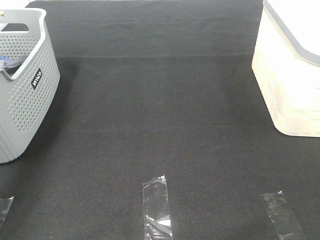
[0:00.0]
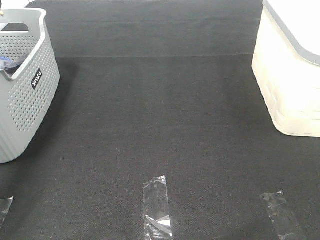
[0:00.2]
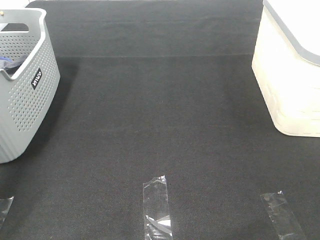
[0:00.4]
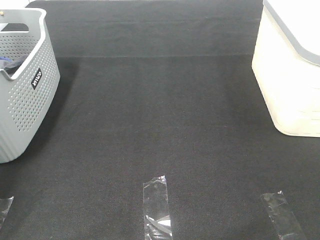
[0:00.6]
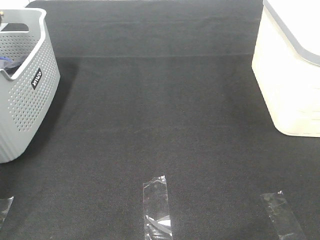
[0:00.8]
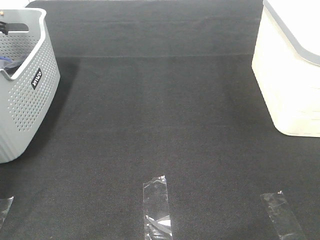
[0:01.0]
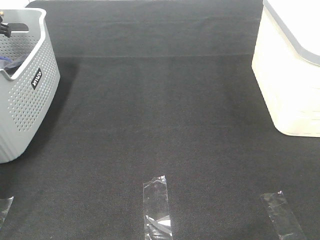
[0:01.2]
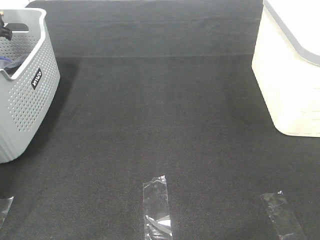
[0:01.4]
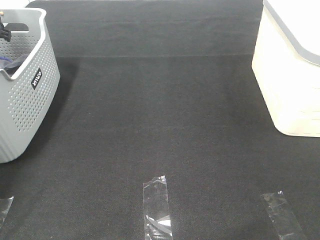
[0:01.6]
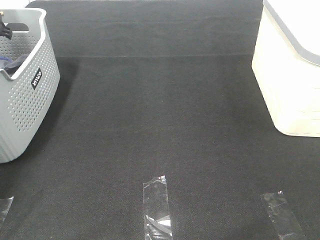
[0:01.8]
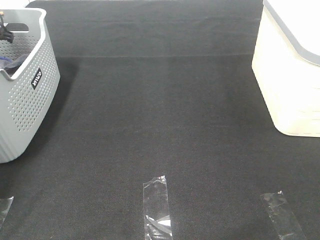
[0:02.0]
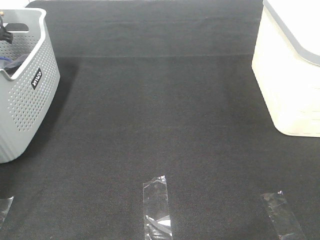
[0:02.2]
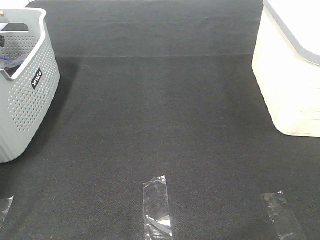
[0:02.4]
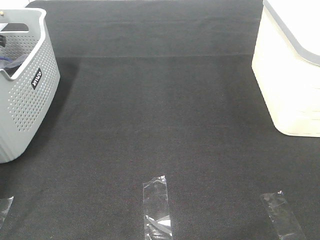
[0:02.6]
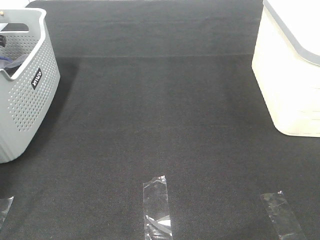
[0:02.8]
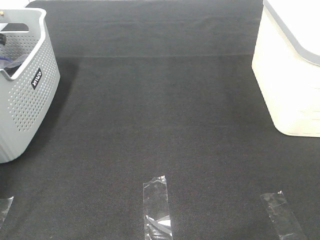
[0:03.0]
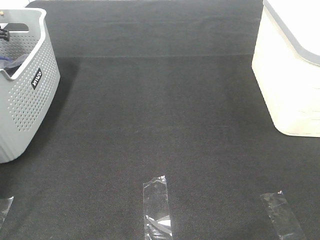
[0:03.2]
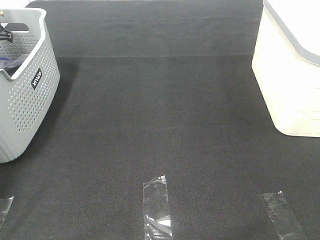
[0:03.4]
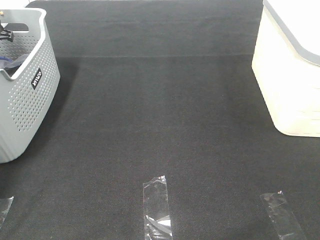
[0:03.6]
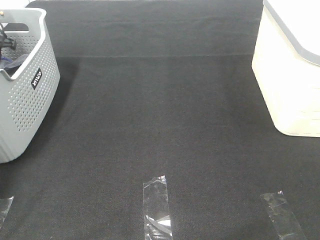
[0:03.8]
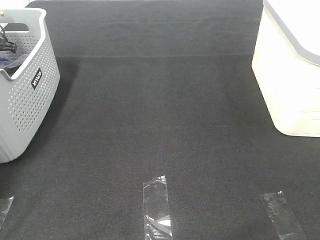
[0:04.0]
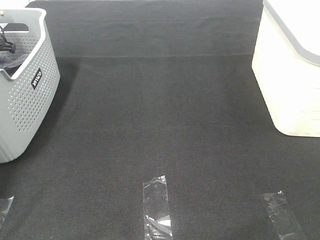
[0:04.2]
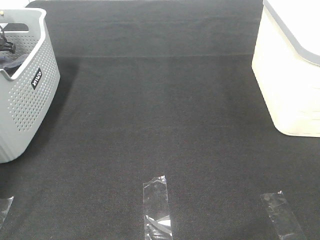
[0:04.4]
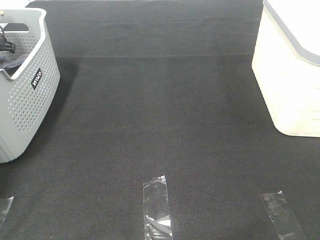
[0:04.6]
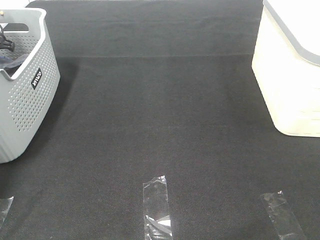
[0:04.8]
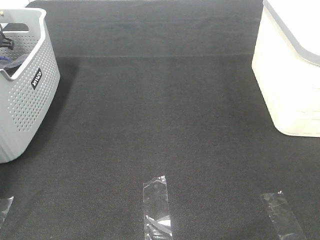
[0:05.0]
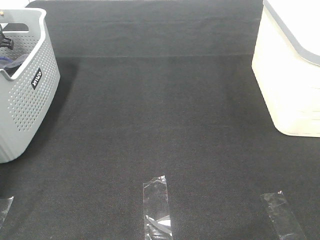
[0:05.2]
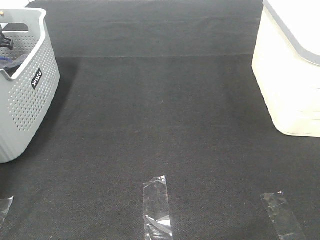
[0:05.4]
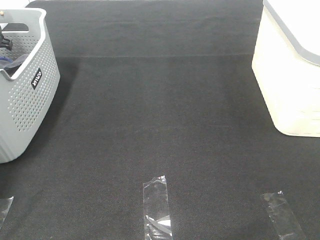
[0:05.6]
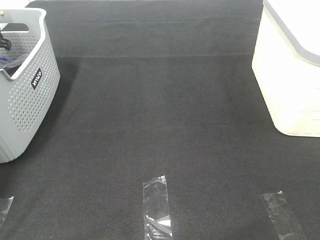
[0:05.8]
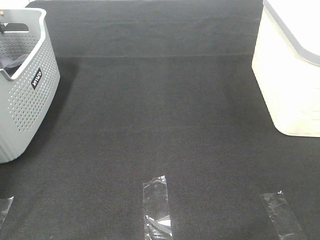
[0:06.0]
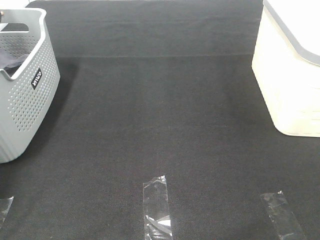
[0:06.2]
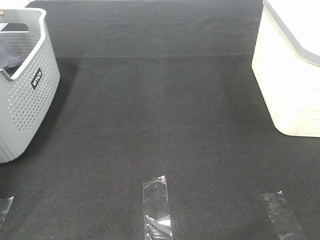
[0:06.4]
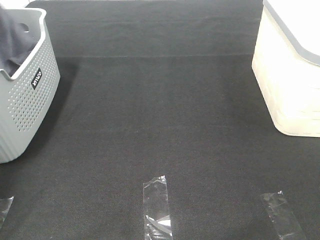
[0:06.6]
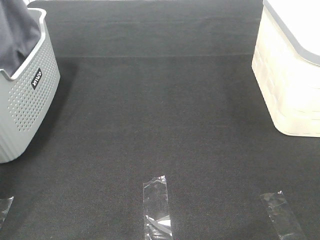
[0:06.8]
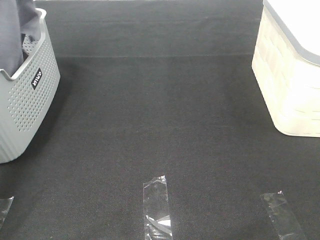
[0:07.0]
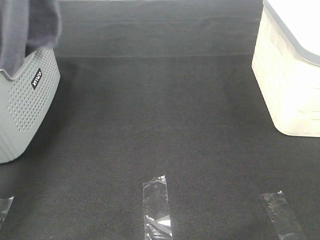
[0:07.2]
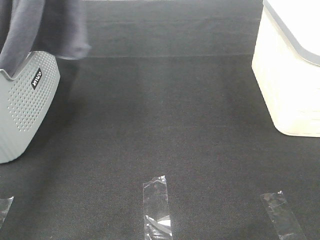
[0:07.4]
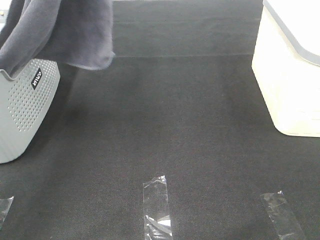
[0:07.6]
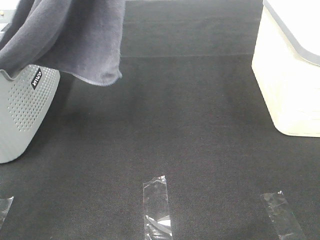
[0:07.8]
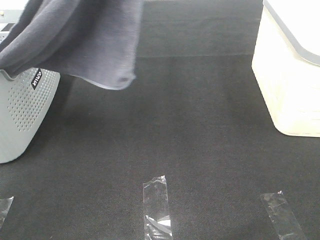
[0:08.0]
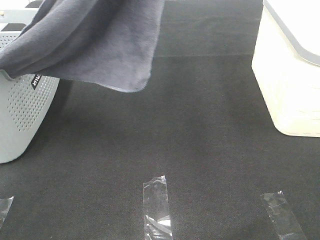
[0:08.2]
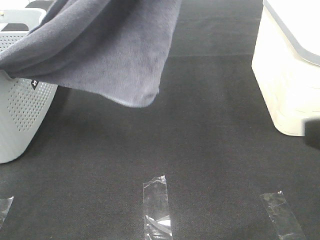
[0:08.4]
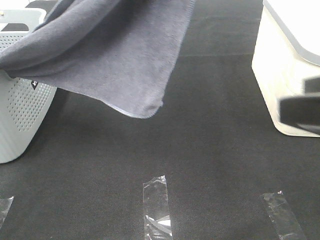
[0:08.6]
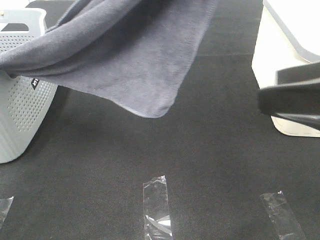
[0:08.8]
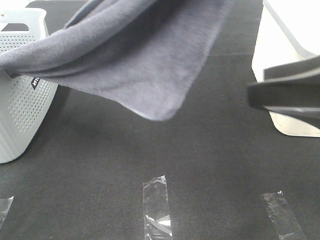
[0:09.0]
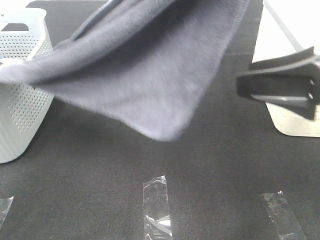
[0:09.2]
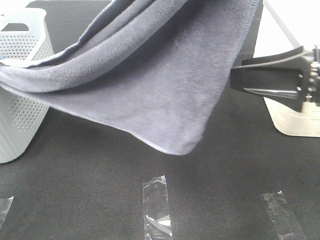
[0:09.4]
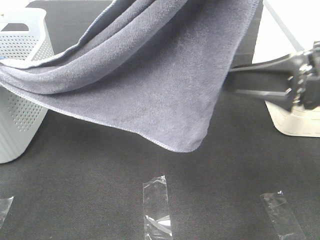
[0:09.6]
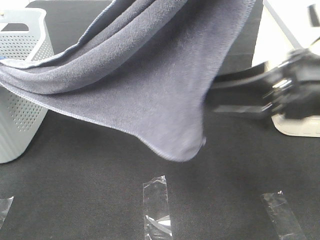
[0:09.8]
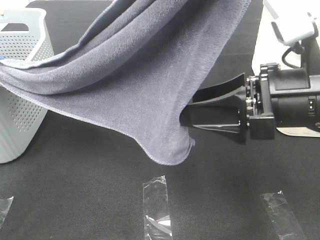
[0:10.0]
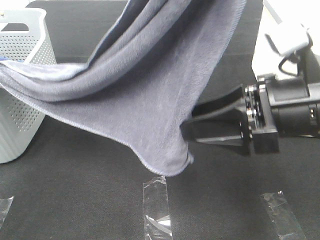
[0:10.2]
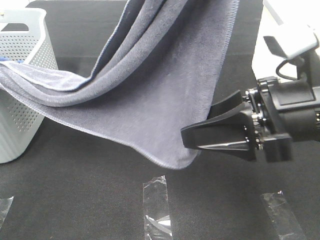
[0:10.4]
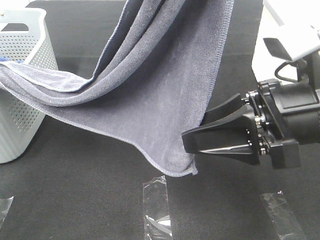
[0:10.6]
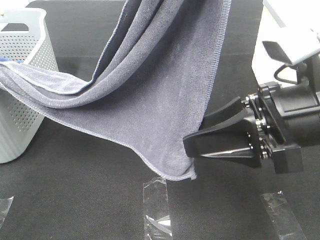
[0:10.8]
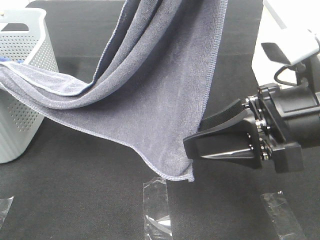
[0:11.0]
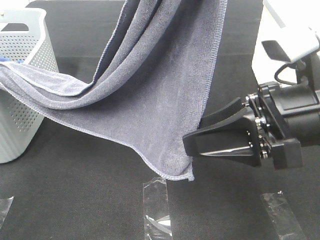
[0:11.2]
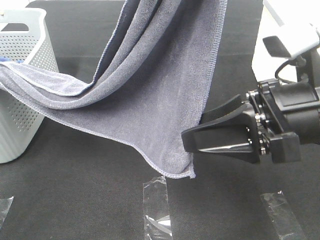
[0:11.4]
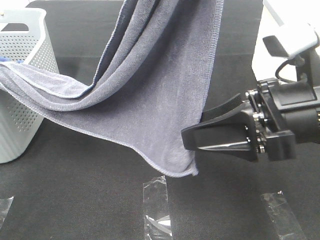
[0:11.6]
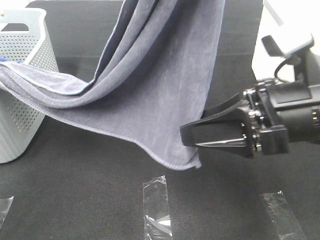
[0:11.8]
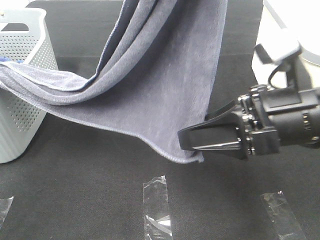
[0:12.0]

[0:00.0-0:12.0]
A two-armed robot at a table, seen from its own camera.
Task of the whole recording: Remove the towel and place it.
Step, 0:06.2 to 0:11.4: Right hand: grab a corner of the grey towel and straighten it.
0:00.0 to 0:01.6: The left gripper heads forward, downward and to the left, covering about 15 cm.
0:06.0 to 0:07.6: The left gripper goes roughly 40 cm upward, to the right and backward.
0:07.6 to 0:09.0: The right gripper travels forward by some 15 cm, while the left gripper is displaced to the right and backward by about 20 cm.
0:09.0 to 0:10.4: The right gripper moves to the left and downward, some 10 cm.
0:10.4 to 0:12.0: There are only small adjustments of the grippers.

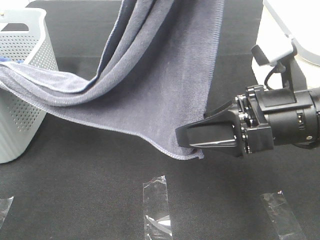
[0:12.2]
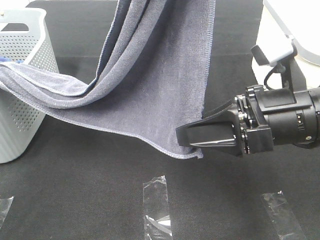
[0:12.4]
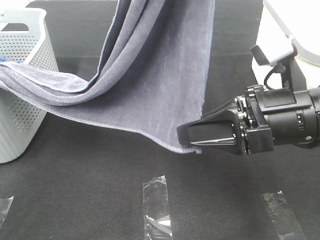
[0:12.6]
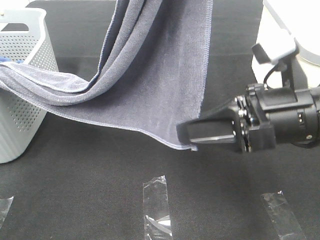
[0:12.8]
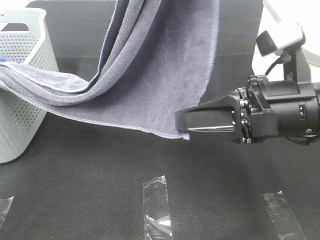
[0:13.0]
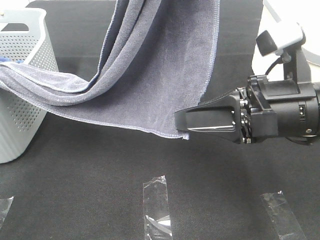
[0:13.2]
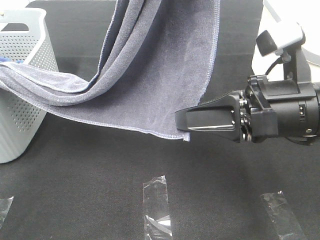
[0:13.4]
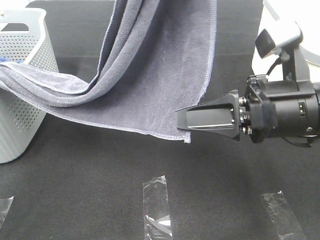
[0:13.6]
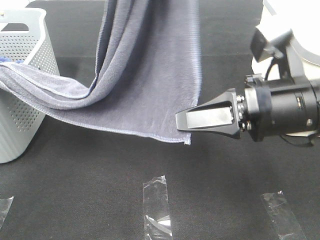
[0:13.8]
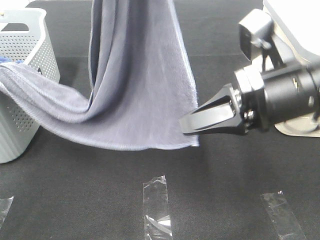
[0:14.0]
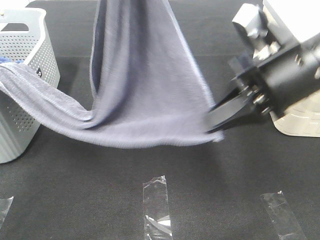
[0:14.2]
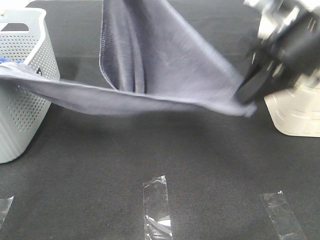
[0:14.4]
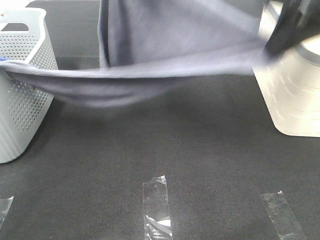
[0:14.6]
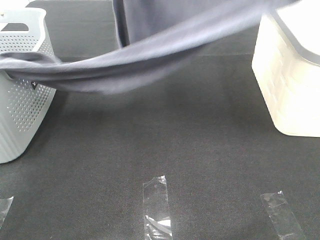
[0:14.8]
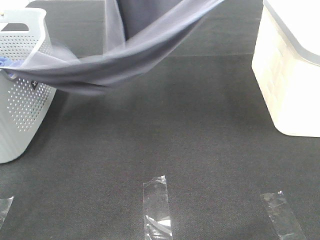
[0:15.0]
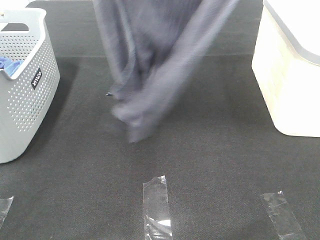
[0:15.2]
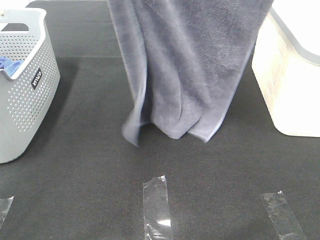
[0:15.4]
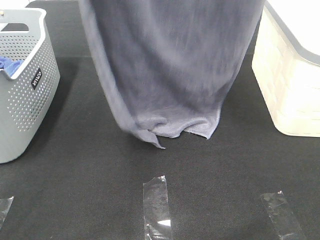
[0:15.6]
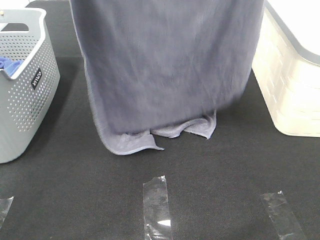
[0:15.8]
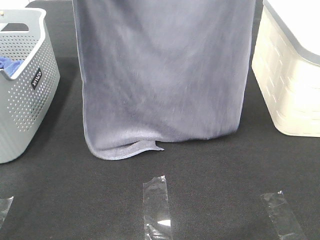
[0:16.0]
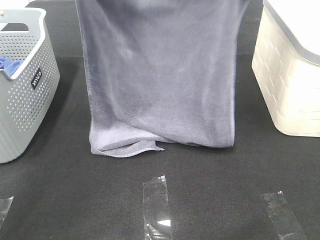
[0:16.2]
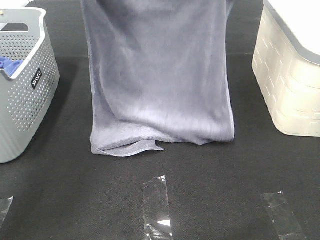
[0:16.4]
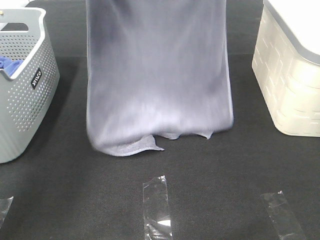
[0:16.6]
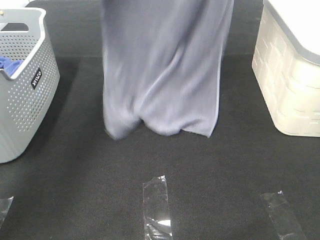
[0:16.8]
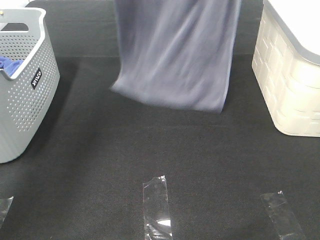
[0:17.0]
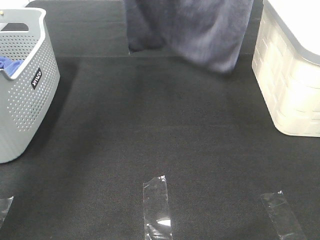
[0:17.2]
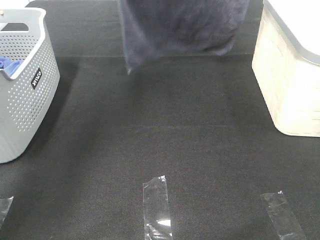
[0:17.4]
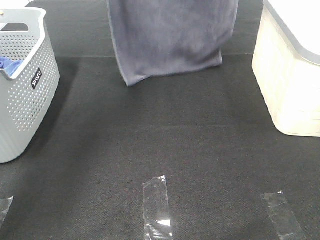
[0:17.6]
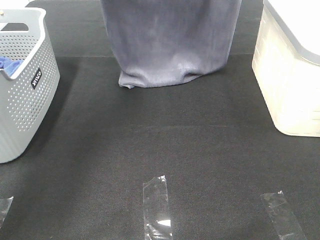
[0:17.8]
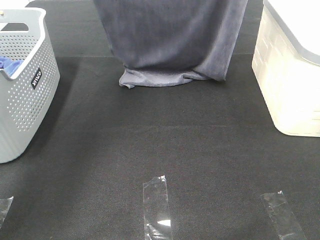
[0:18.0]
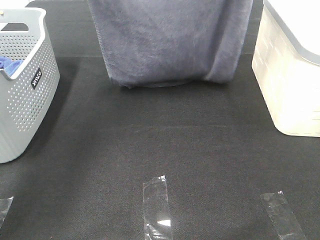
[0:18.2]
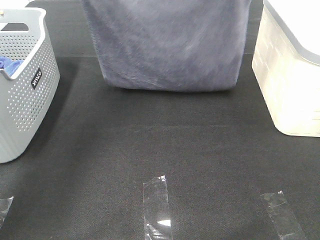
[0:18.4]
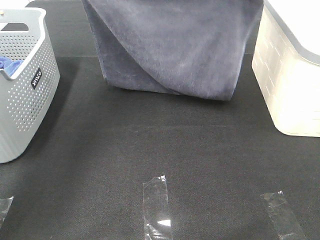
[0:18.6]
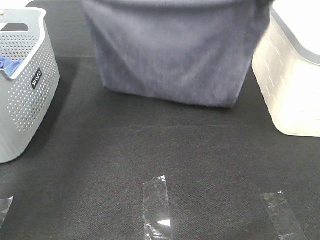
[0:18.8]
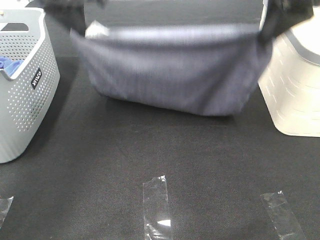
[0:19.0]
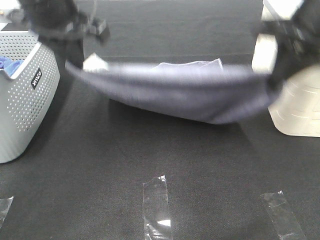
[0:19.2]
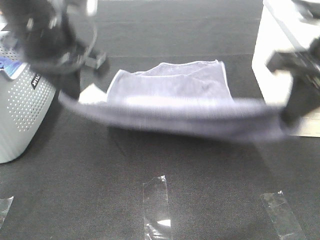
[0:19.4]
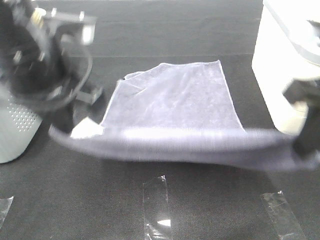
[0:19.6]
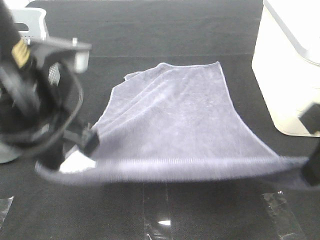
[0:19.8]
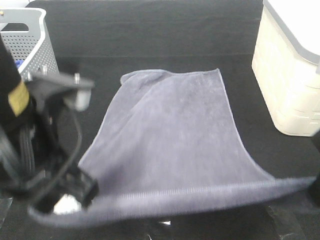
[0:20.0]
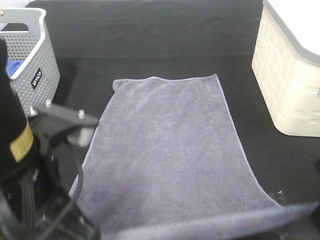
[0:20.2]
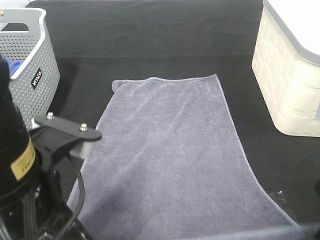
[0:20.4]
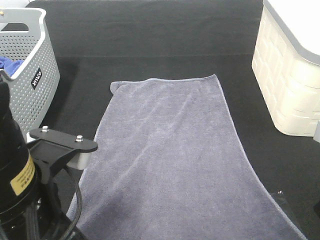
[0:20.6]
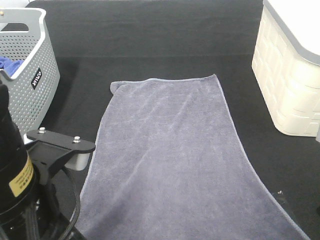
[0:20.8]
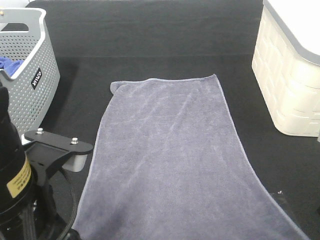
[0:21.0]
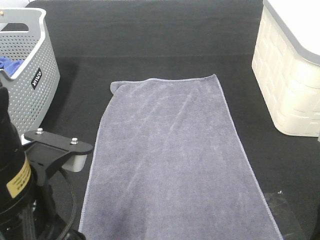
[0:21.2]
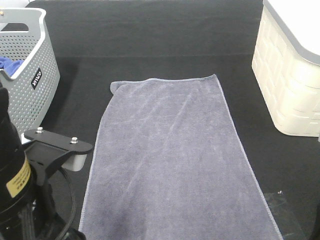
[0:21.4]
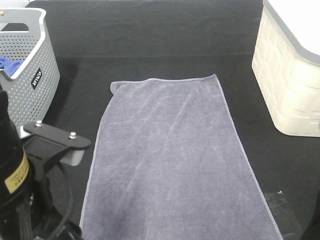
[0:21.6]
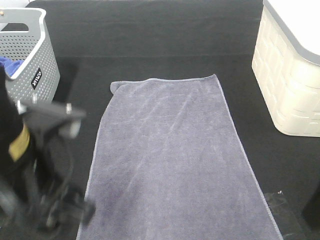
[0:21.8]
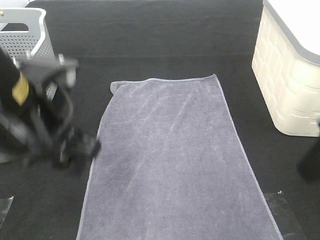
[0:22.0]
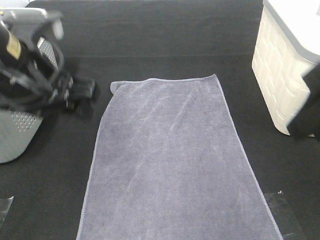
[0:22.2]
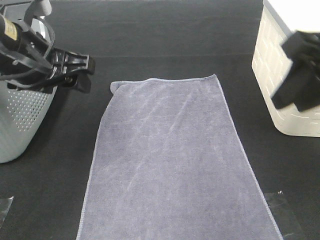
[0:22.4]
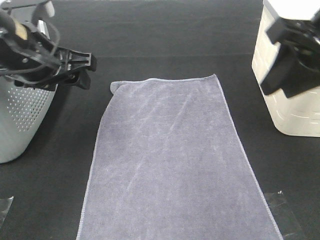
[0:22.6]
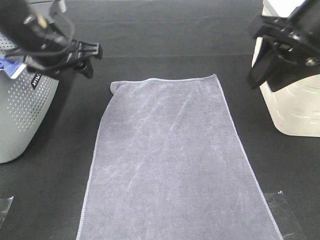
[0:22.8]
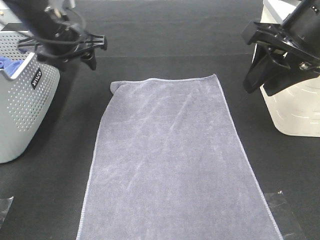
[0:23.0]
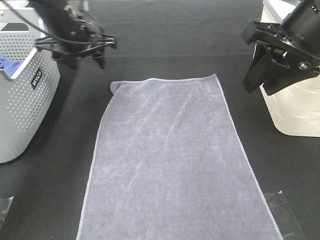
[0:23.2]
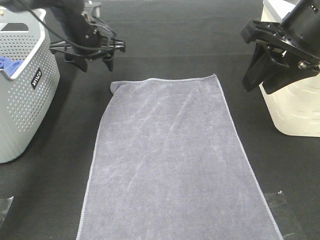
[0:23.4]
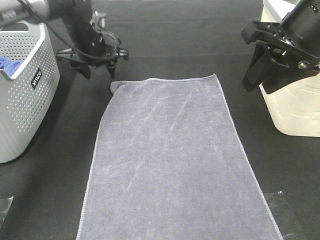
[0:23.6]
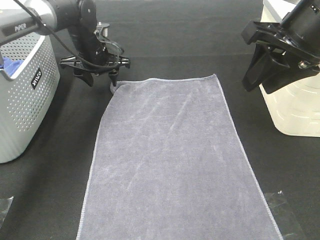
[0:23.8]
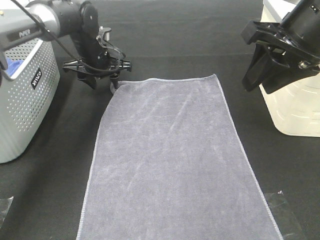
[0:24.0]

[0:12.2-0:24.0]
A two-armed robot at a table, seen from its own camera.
Task of the whole recording: Remove the towel and place it.
Step, 0:12.2 to 0:15.6: Left hand: spread the grey towel flat on the table.
Step, 0:12.2 to 0:15.6: Right hand: spread the grey towel flat on the table.
Step, 0:15.8 to 0:24.0: Left hand:adjust the gray towel.
Step, 0:15.8 to 0:24.0: Right hand:adjust the gray towel.
0:12.2 to 0:13.6: The right gripper closes its fingers.
0:13.6 to 0:15.2: The left gripper heads to the left and upward, covering roughly 10 cm. The right gripper heads upward, covering roughly 35 cm.
0:15.2 to 0:16.6: Both grippers move forward and downward, approximately 25 cm.
0:16.6 to 0:18.2: The right gripper goes upward and returns, some 15 cm each way. The left gripper reaches about 10 cm upward, then returns.
0:18.2 to 0:19.6: Both grippers travel together backward and downward, approximately 25 cm.
0:19.6 to 0:21.0: Both grippers move backward and downward, roughly 10 cm. The left gripper opens up. The right gripper opens up.
0:21.0 to 0:22.6: The left gripper travels forward by some 20 cm. Meanwhile the right gripper goes roughly 15 cm forward and upward, and opens, then closes once more.
0:22.6 to 0:24.0: The left gripper travels forward and downward by some 25 cm.
